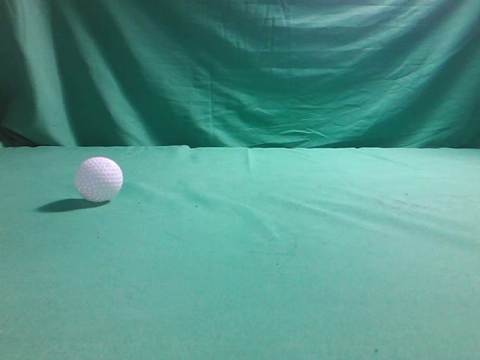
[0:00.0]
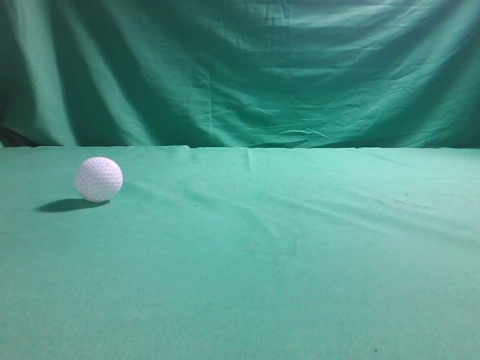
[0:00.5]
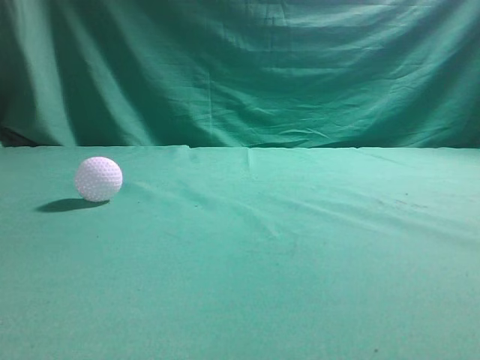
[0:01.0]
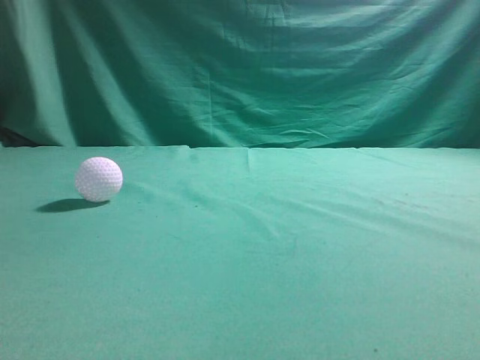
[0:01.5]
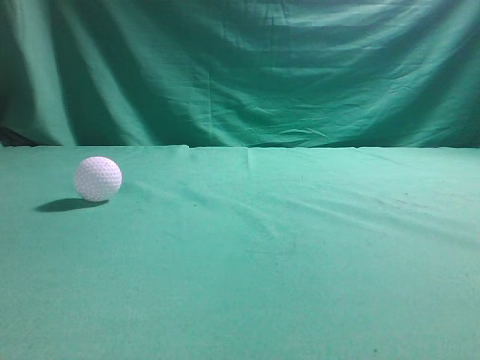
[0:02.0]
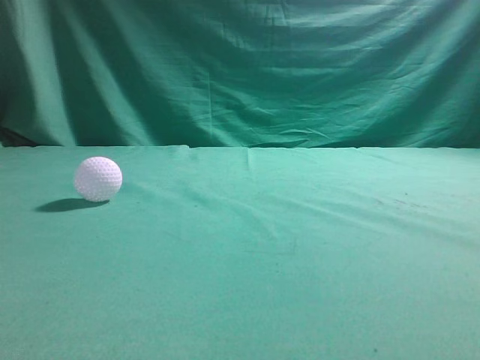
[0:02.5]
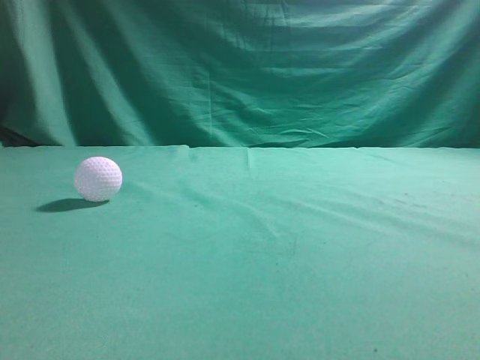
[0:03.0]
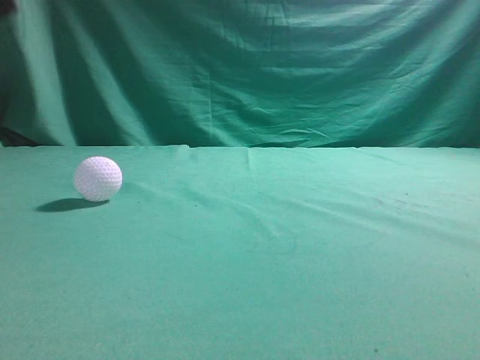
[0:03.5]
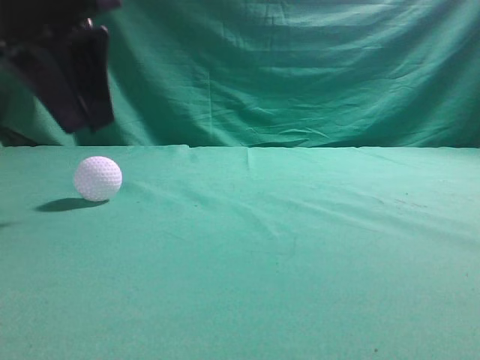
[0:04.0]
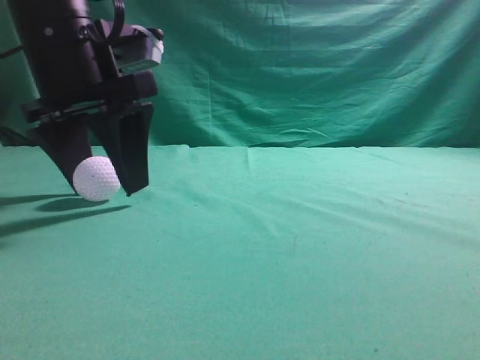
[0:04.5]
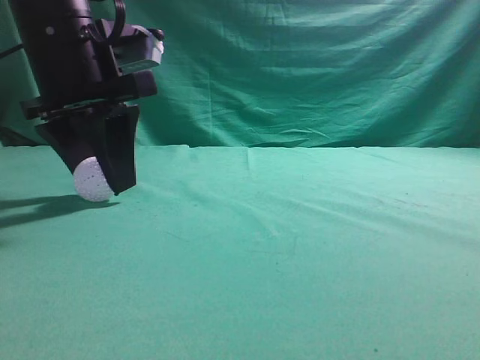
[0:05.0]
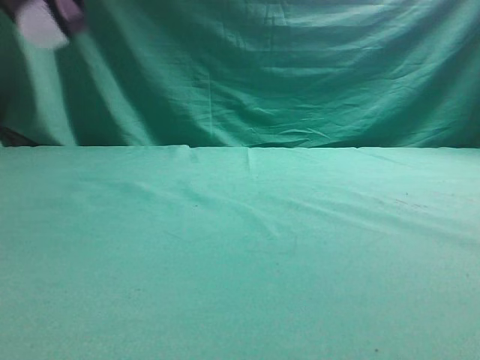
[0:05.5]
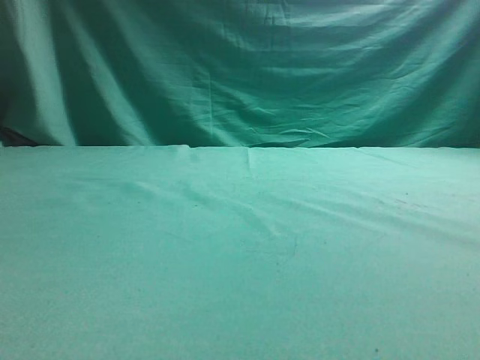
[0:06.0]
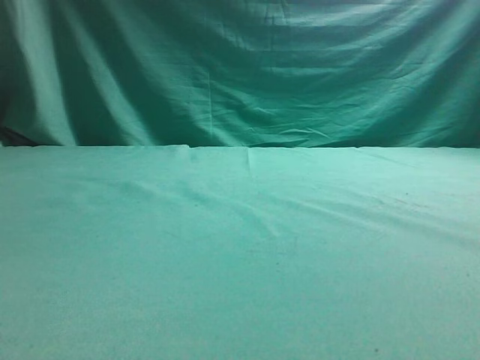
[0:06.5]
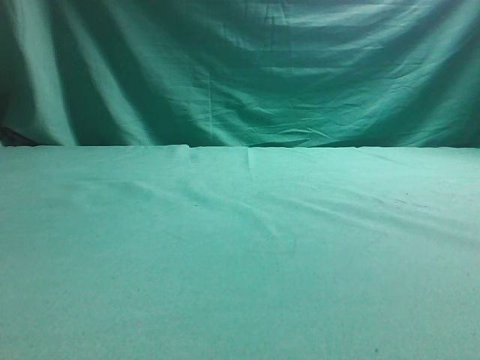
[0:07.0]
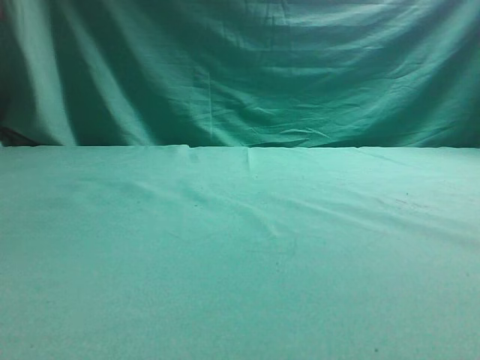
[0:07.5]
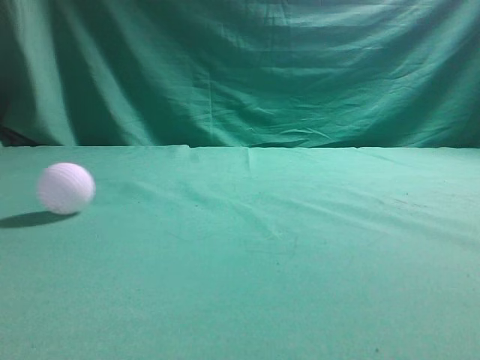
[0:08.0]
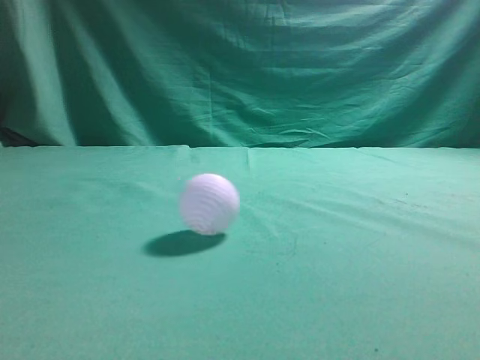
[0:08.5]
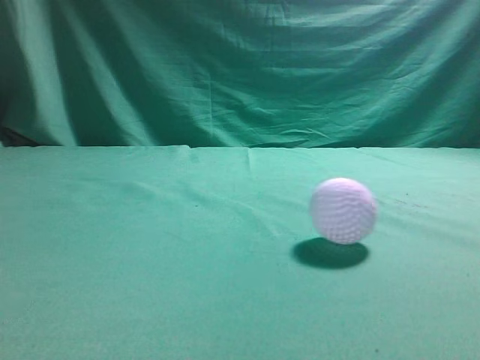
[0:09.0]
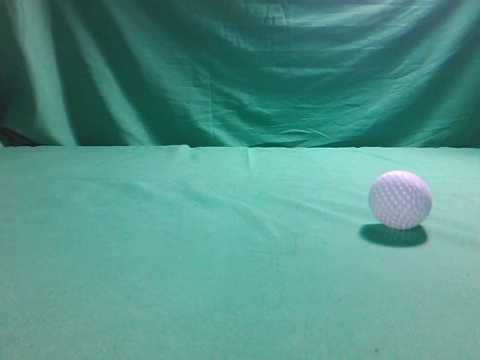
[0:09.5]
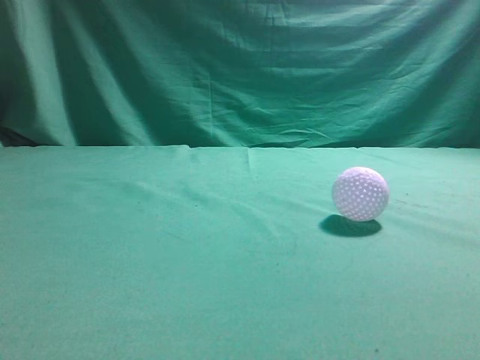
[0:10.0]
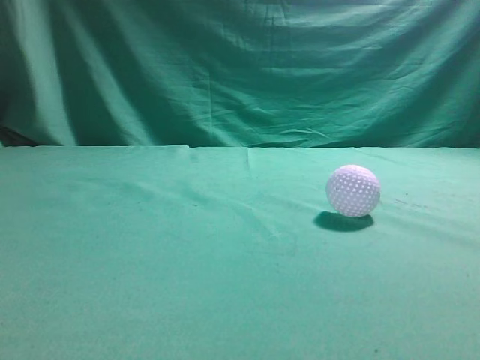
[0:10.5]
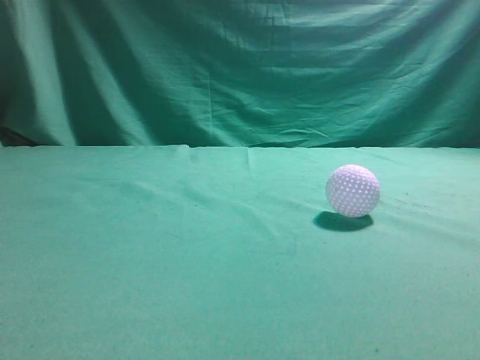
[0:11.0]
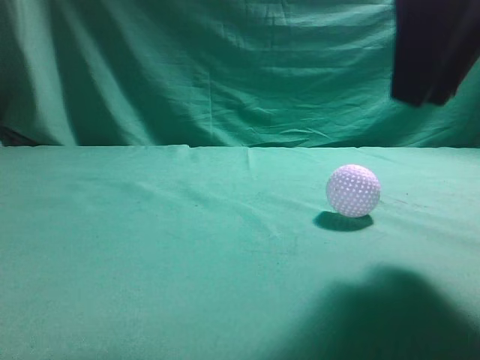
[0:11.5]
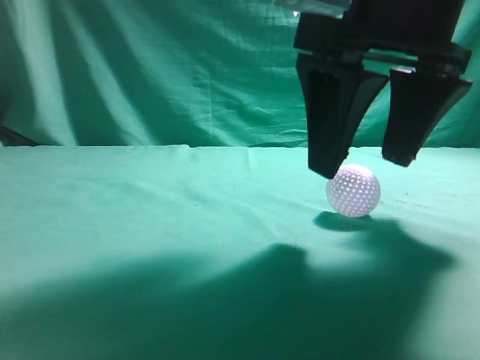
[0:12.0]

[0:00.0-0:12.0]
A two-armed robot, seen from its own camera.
Task of the whole recording: pick up the ball and place it on the plate, then pick up the ball from the plate and put it in the center of the table.
Step, 0:00.0 to 0:05.0: Grab the spherical object with your left arm.
0:02.0 to 0:04.0: The left gripper goes roughly 30 cm forward and to the right, and opens.
0:04.0 to 0:06.0: The left gripper shifts roughly 15 cm to the left and upward, and opens, then closes once more.
0:06.0 to 0:08.0: The left gripper is displaced upward by about 10 cm, and closes.
0:08.0 to 0:10.0: The left gripper heads backward, covering approximately 25 cm, while the right gripper goes about 10 cm upward.
0:10.0 to 0:12.0: The right gripper goes some 25 cm to the left, forward and downward, and opens.

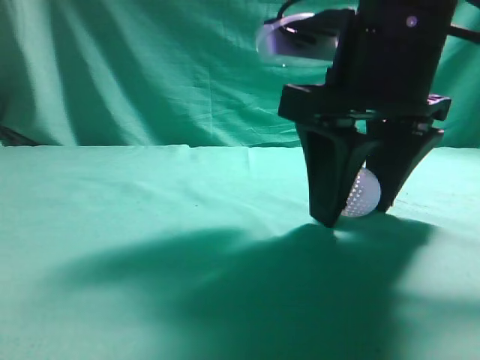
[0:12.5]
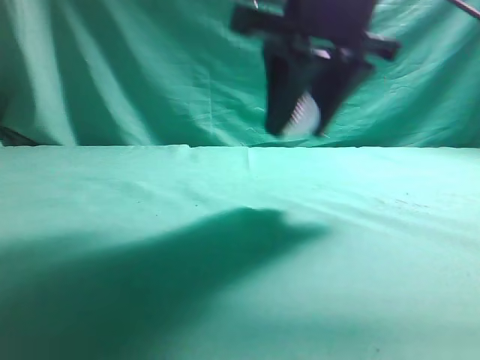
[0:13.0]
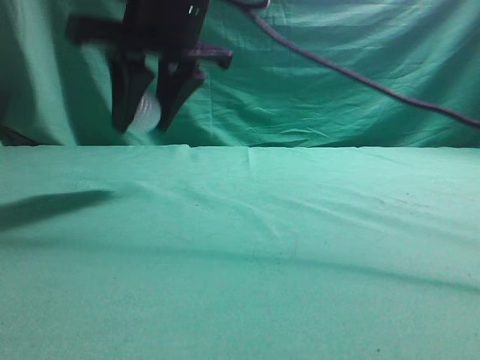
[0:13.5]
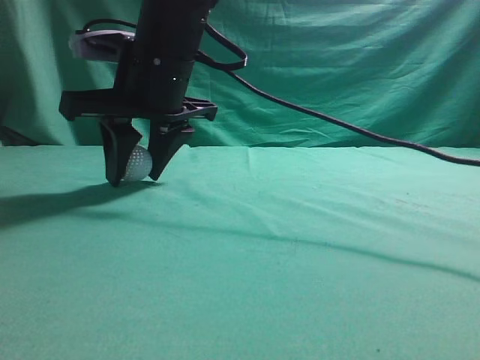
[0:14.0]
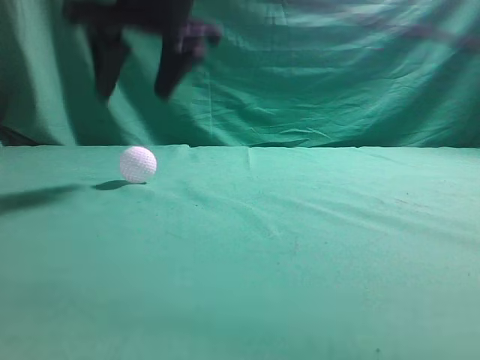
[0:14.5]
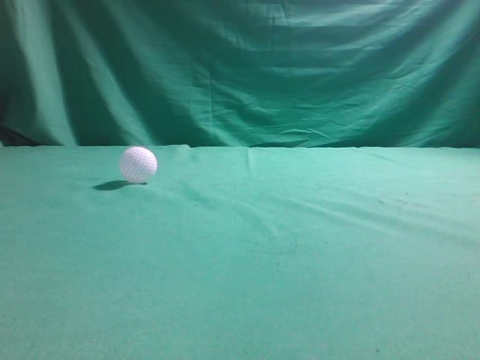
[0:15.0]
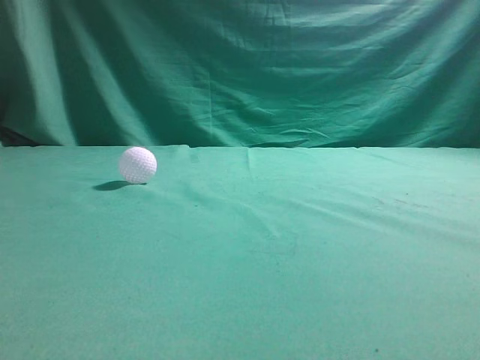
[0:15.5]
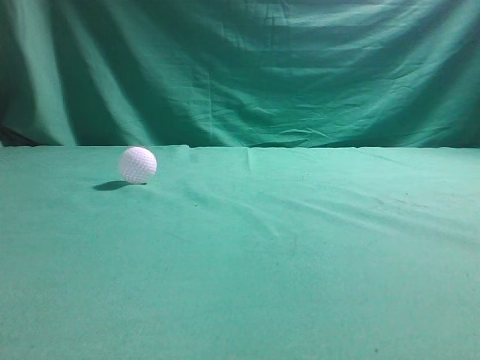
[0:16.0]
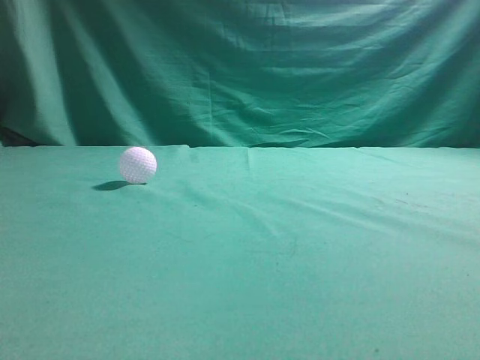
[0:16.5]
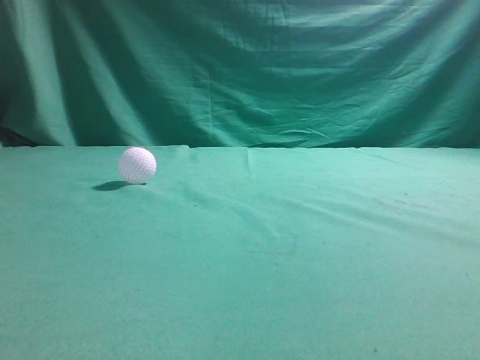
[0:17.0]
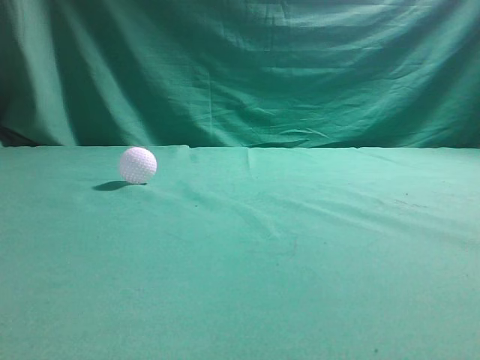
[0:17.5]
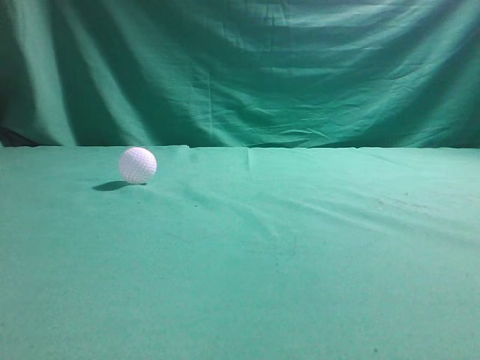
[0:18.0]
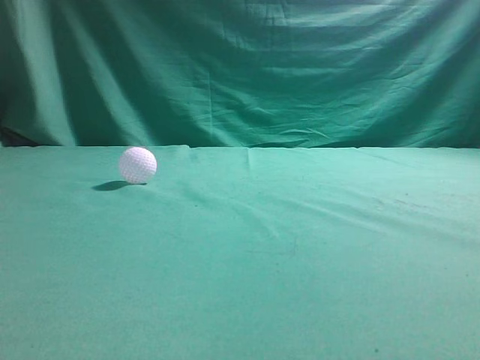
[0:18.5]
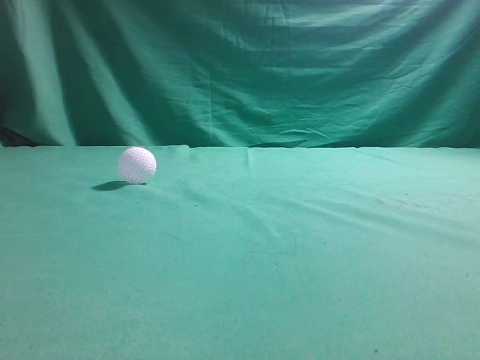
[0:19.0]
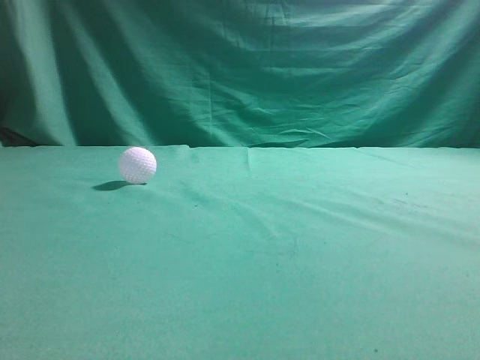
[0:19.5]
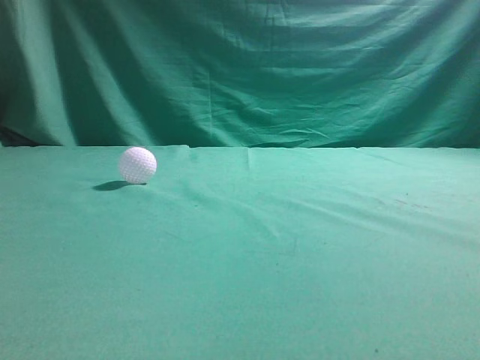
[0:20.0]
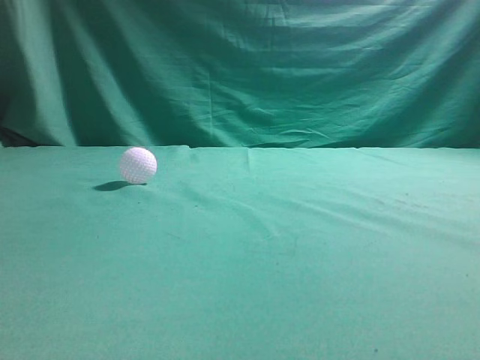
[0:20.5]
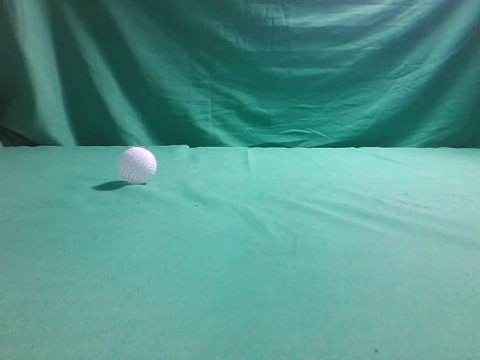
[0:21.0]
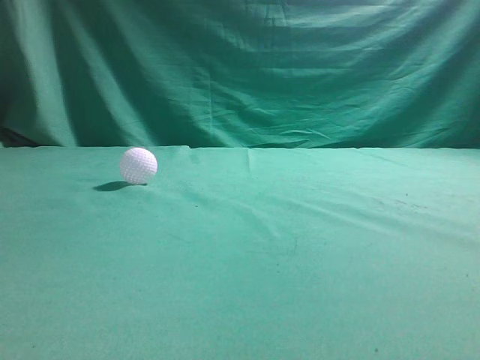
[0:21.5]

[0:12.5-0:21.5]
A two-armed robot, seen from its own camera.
Task of the whole recording: pick up the ball and place it on the plate, then pick up the ball from the plate and put it in the center of the table.
Step, 0:13.0 to 0:14.0: Put the picked-up object on the table.
0:12.5 to 0:14.5: The right gripper is displaced to the left, forward and upward by some 20 cm.
0:14.5 to 0:17.0: The right gripper travels to the right, backward and upward by about 50 cm, and closes up.
